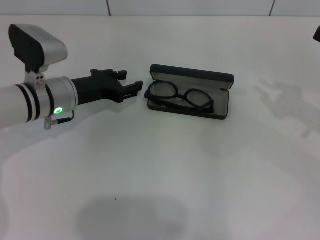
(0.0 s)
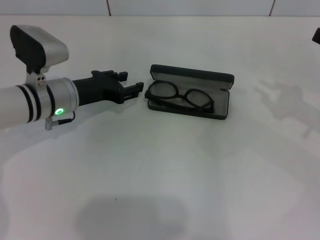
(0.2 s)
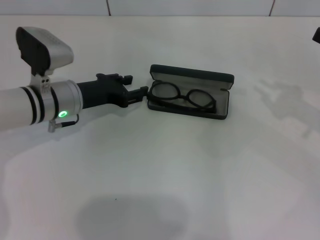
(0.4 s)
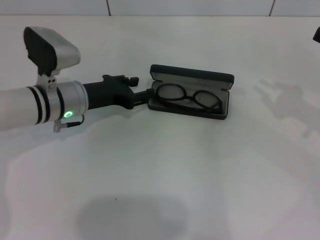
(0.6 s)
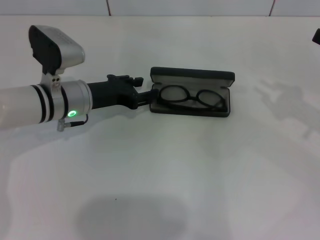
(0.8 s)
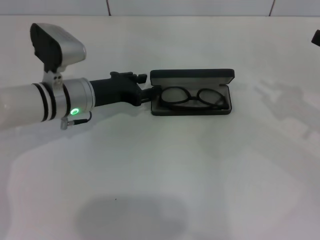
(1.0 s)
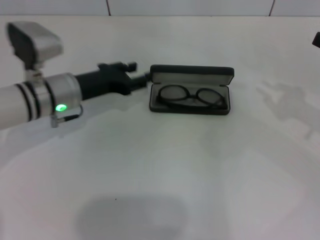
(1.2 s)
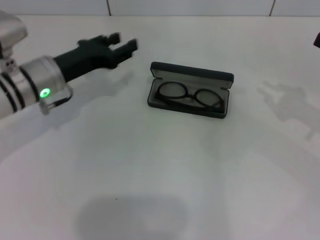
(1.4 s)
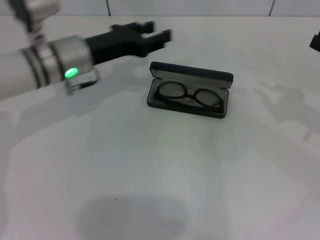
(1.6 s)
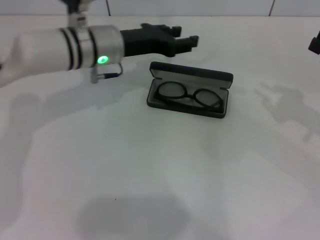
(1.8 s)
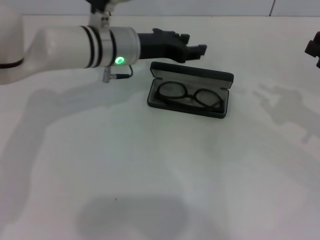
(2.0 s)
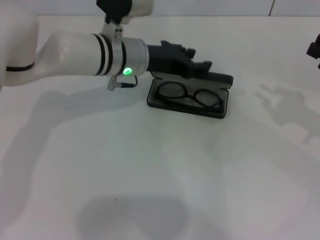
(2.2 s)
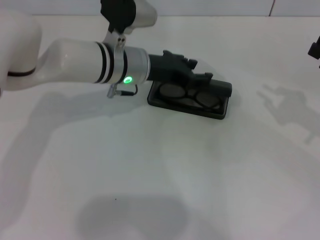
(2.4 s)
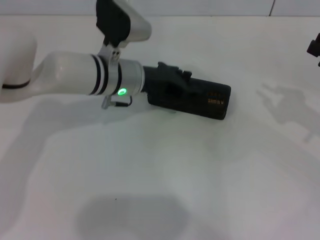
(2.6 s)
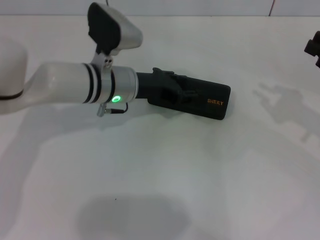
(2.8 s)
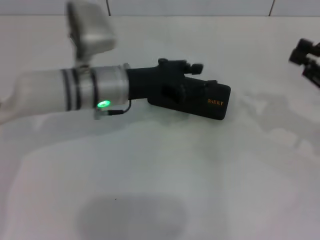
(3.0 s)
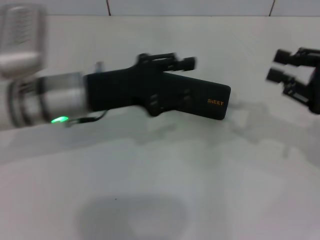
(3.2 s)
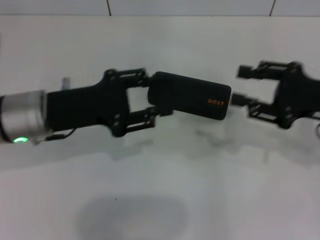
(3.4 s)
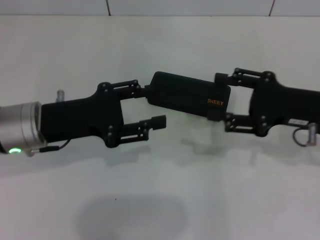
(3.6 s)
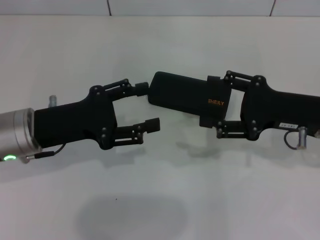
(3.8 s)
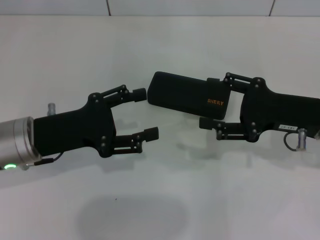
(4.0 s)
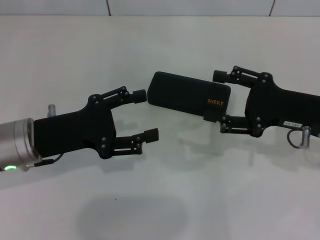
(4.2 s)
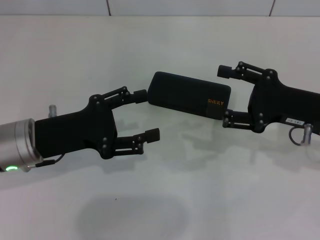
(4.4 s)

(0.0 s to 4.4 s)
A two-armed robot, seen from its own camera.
Step, 1.2 s - 2.4 s: Close the glasses case with your left hand.
0.0 s - 1.4 s: The grippers stay close to where they were, moving slightly.
1.4 s - 3.0 s: The left gripper travels to the right by approximately 10 cm.
3.0 s - 4.4 s: The right gripper travels to the left by some 10 cm, and opens its fingers, while the left gripper heads to the left and backward, covering about 15 cm, and opens.

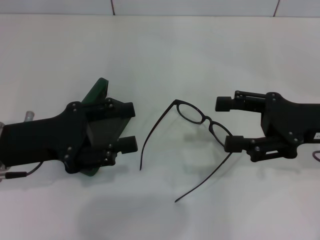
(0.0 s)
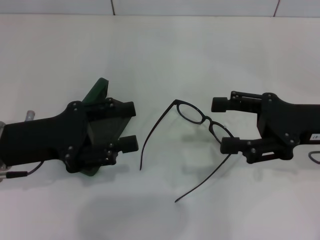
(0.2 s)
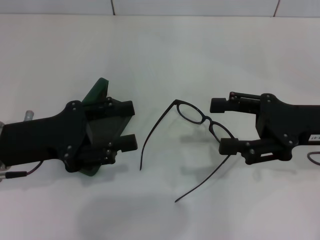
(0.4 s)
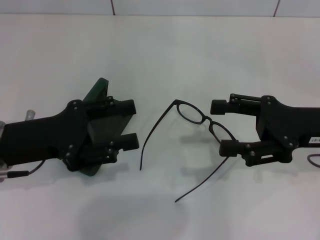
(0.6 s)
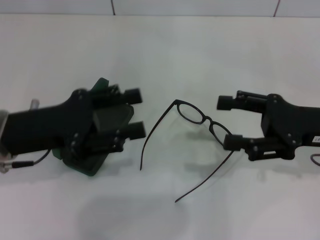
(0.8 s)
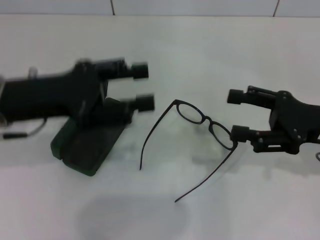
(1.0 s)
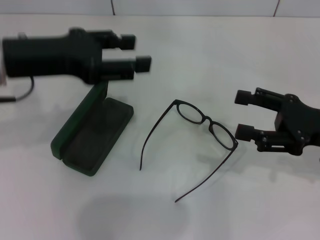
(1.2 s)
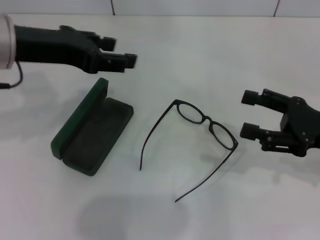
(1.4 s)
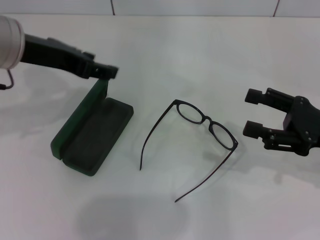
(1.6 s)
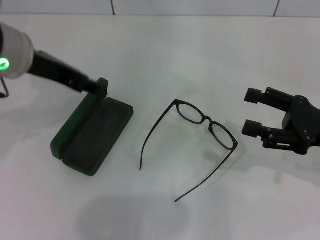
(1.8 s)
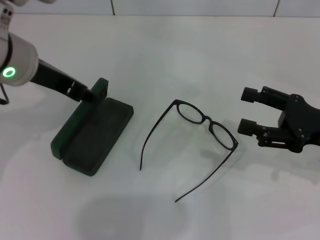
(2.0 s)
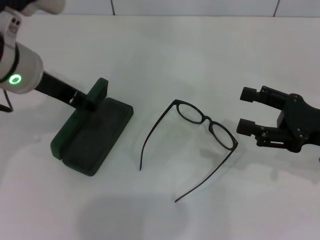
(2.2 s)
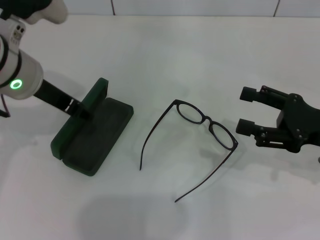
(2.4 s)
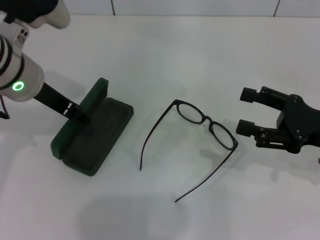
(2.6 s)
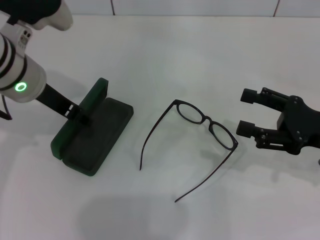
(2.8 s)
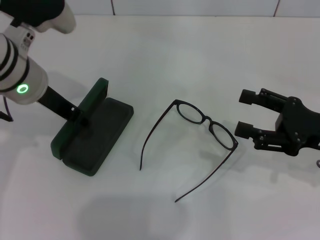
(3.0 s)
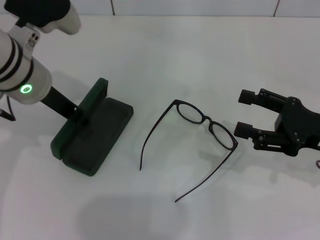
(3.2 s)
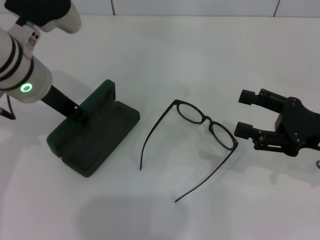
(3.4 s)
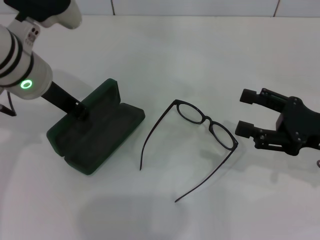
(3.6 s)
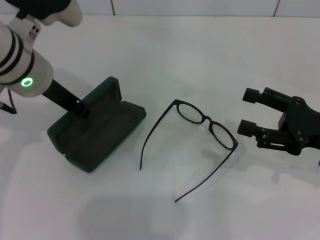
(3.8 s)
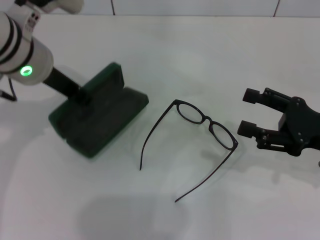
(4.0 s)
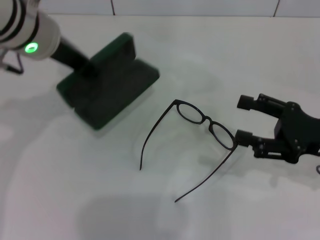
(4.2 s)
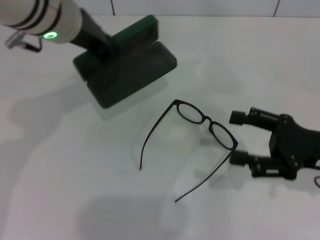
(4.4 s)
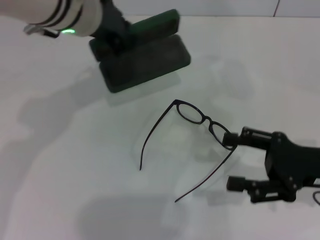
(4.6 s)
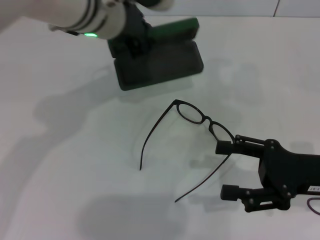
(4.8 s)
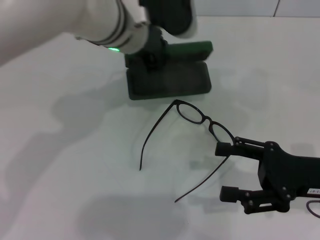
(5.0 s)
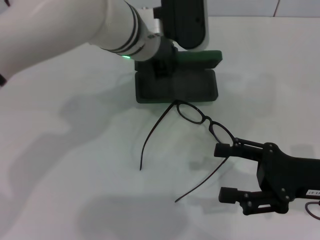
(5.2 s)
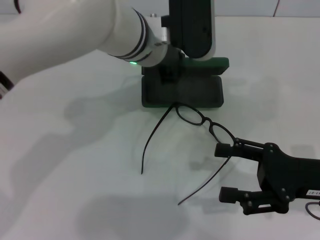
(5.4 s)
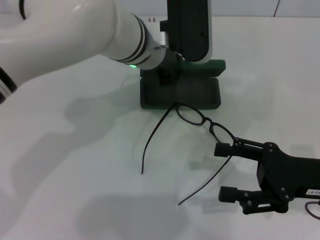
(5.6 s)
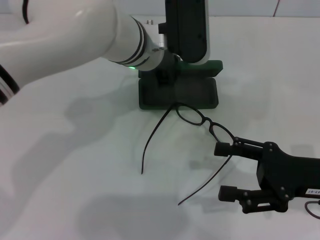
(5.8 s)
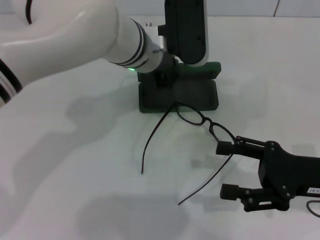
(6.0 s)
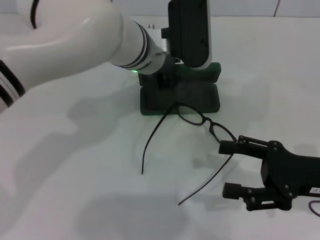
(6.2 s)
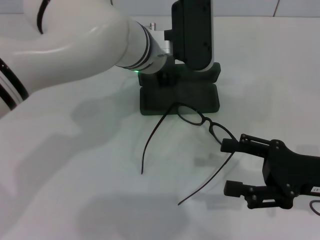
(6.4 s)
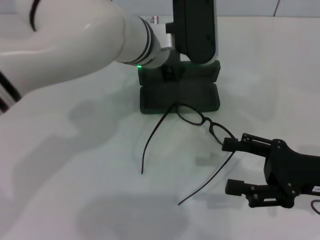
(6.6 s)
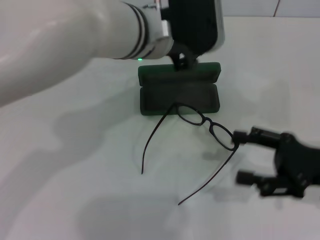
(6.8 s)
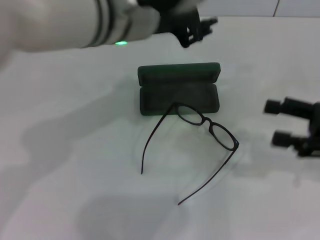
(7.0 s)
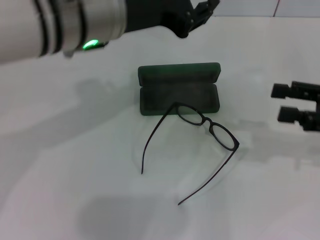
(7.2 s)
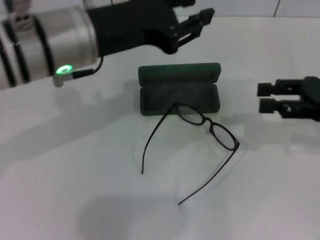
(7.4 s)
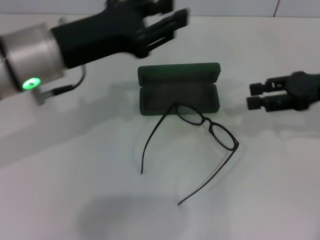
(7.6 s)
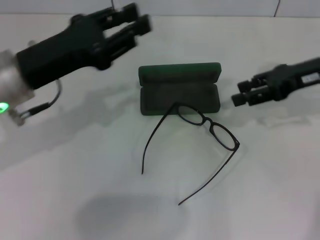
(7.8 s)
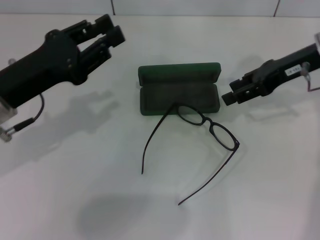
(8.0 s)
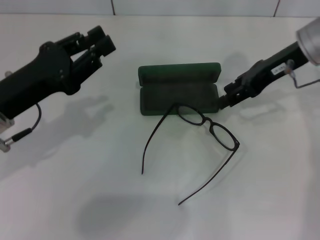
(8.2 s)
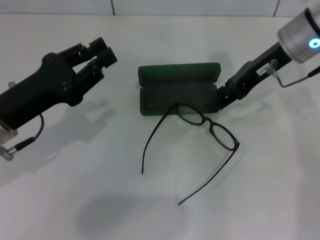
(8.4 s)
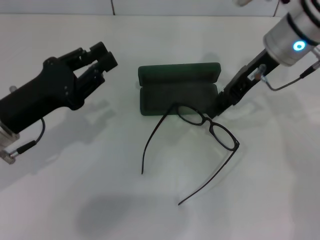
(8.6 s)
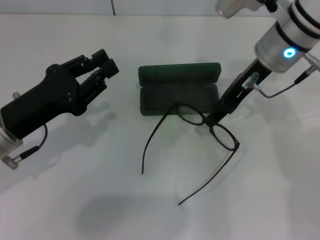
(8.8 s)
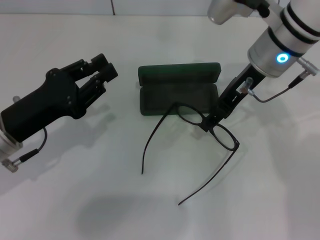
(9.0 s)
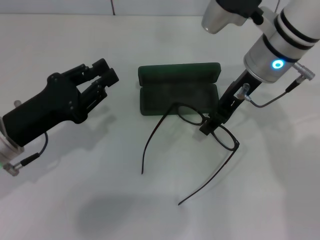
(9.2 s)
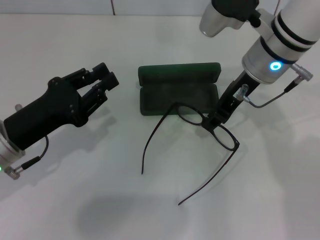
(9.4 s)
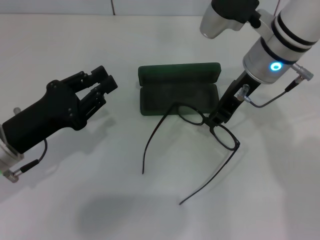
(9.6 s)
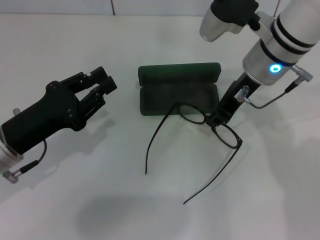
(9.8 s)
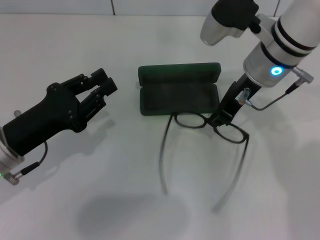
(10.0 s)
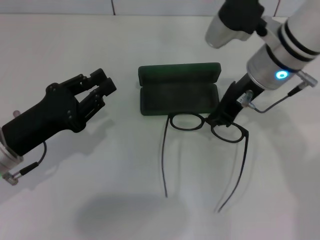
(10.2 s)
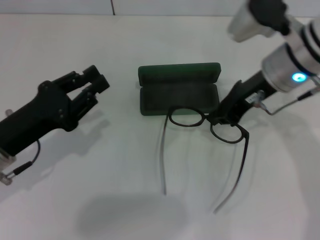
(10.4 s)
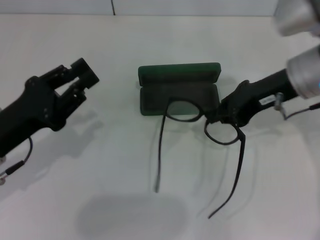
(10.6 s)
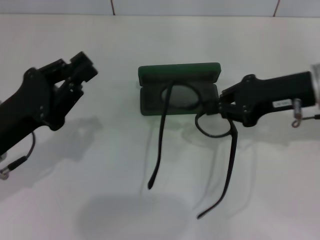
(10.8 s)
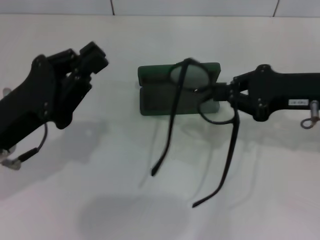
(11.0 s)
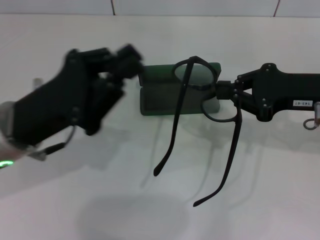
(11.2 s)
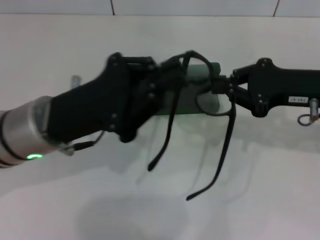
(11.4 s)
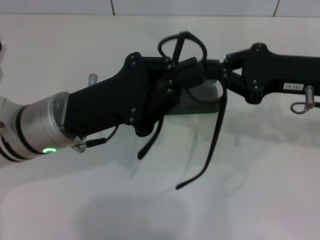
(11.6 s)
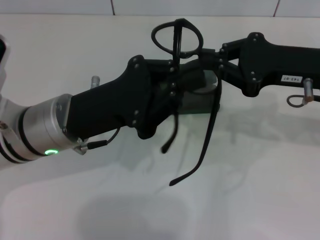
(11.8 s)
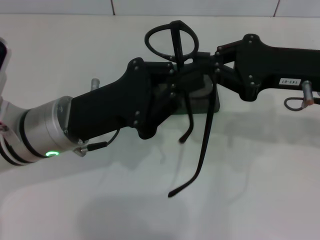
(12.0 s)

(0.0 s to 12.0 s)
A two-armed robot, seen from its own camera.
Step, 0.0 s - 3.2 s: Grab the glasses case with your left hand.
Step, 3.4 s - 6.0 s: Place the glasses case in the center of the table with your left hand.
Step, 6.2 s - 10.0 s: Grab the eyeglass frame with your right hand.
0.0 s - 1.6 s: The left gripper moves upward and forward, approximately 15 cm, while the right gripper moves roughly 5 cm.
1.6 s - 3.0 s: The left gripper is displaced downward by about 5 cm.
3.0 s - 4.4 s: The left gripper moves upward, roughly 5 cm, and closes its fingers.
4.4 s - 6.0 s: The left gripper is displaced to the right and downward by about 10 cm.
6.0 s - 7.6 s: The right gripper moves forward and upward, approximately 15 cm, while the left gripper travels to the left and backward by roughly 15 cm.
7.6 s - 9.0 s: The right gripper travels to the left by about 15 cm. Meanwhile the left gripper is displaced downward and to the left by approximately 15 cm.
9.0 s - 10.4 s: The right gripper closes up.
10.4 s - 12.0 s: The left gripper heads to the right, covering about 10 cm, and closes up, while the right gripper travels to the right by roughly 5 cm.

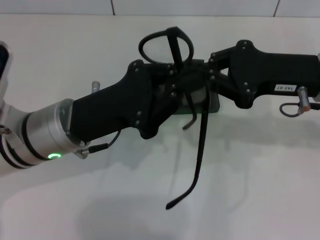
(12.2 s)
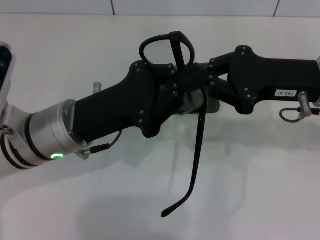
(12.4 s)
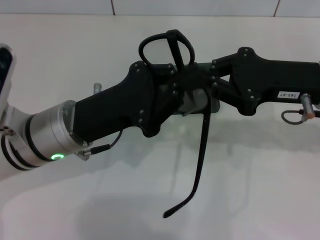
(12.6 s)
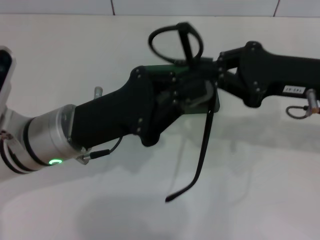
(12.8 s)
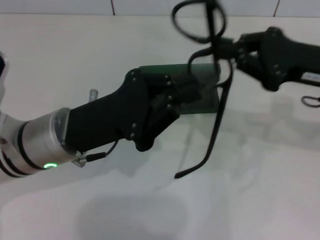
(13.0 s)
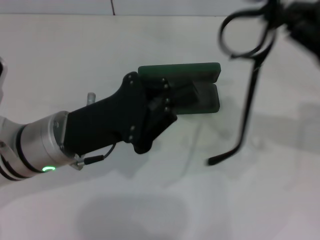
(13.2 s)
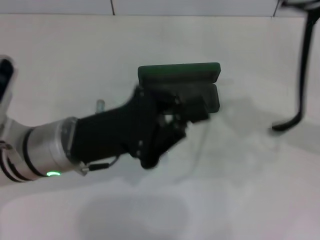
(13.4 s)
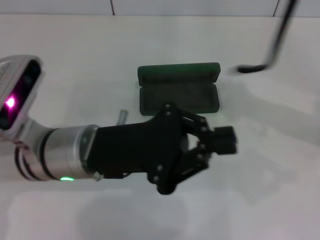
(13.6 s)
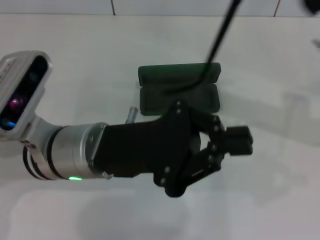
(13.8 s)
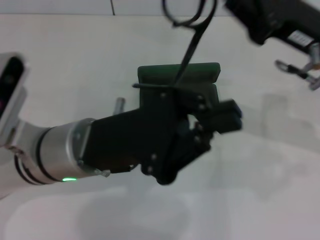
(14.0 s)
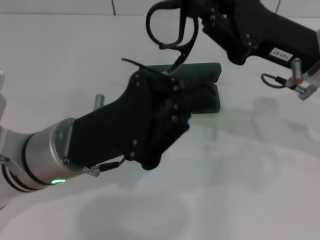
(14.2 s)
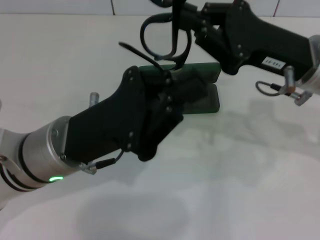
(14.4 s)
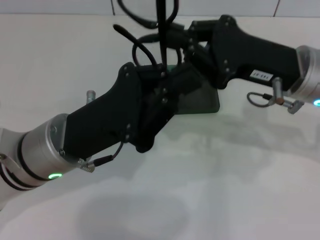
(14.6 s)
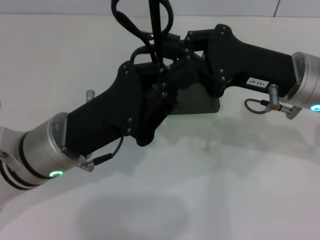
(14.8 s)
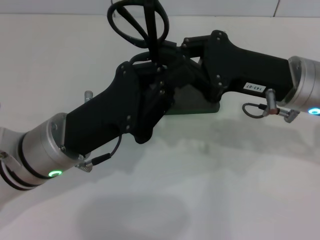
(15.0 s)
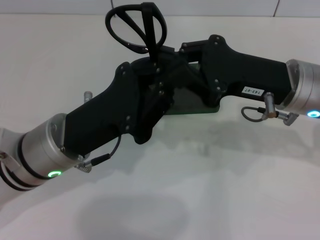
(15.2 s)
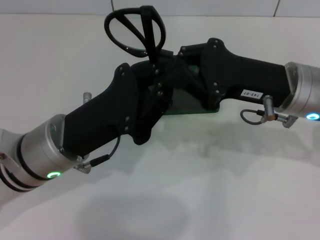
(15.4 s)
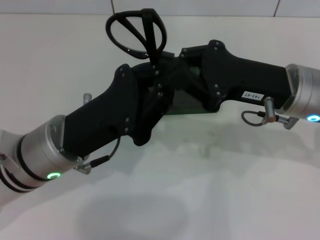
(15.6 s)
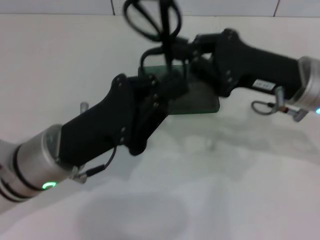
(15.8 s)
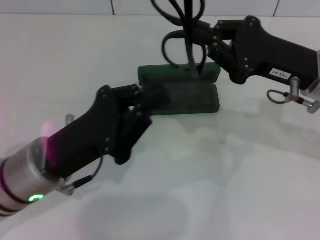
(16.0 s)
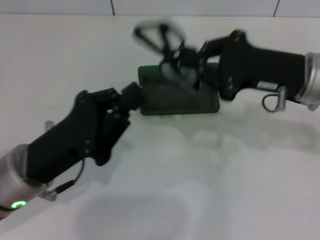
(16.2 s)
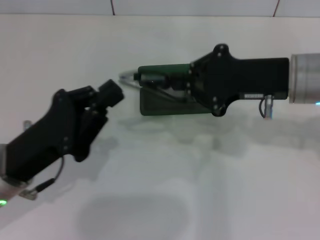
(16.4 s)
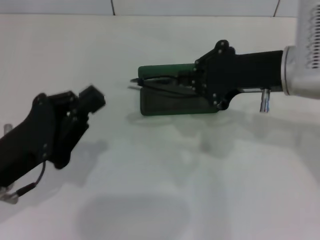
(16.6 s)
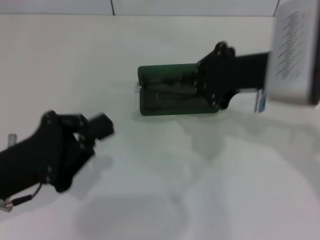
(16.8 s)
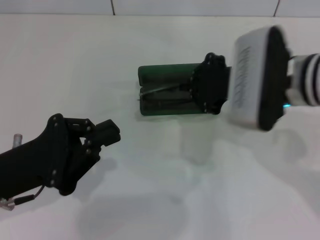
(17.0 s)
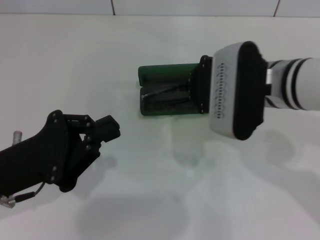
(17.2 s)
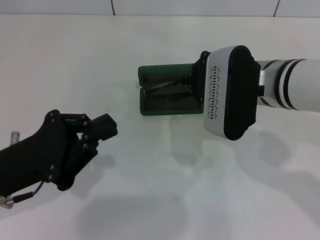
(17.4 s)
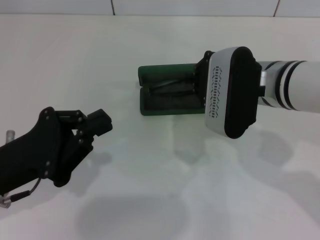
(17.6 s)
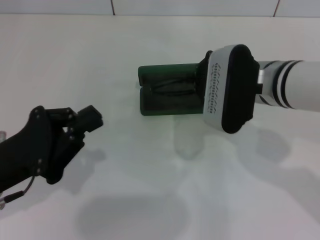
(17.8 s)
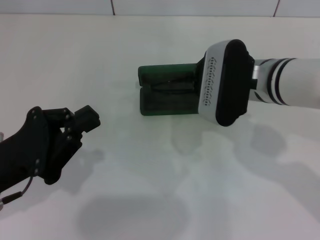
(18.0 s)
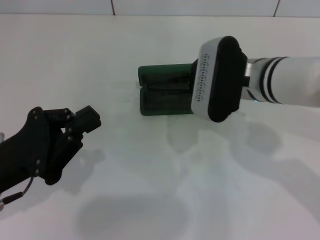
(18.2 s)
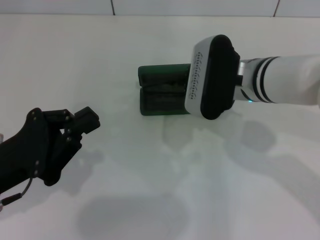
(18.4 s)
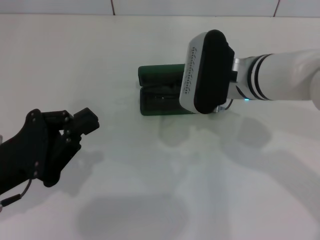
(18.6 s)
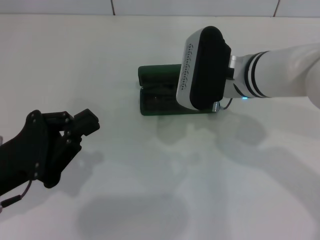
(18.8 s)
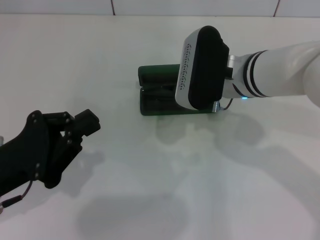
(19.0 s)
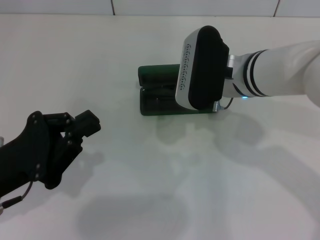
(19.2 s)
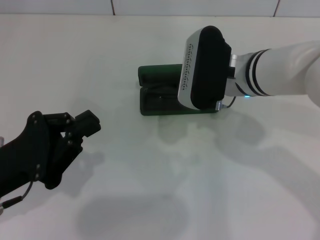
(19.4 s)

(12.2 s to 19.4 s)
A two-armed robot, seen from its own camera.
Step, 12.2 s - 15.4 s: Fold the frame with your left hand.
12.2 s - 13.6 s: The right gripper travels to the right by about 5 cm.
13.6 s - 15.0 s: The right gripper is displaced to the left and downward by roughly 10 cm.
15.0 s - 16.6 s: The left gripper travels to the left by roughly 10 cm.
16.6 s - 18.0 s: The right gripper goes approximately 10 cm downward and to the left.
18.0 s - 19.4 s: The grippers stay close to where they were, moving slightly.
